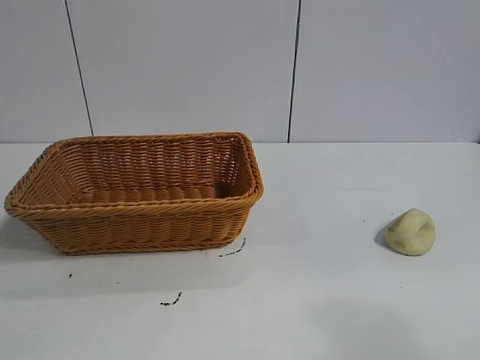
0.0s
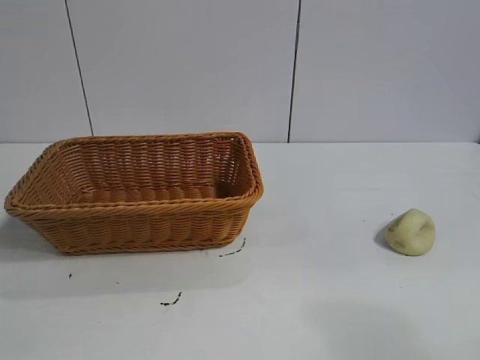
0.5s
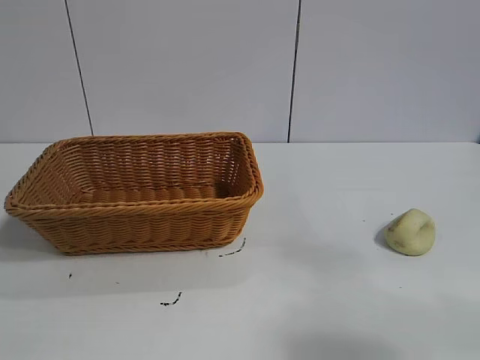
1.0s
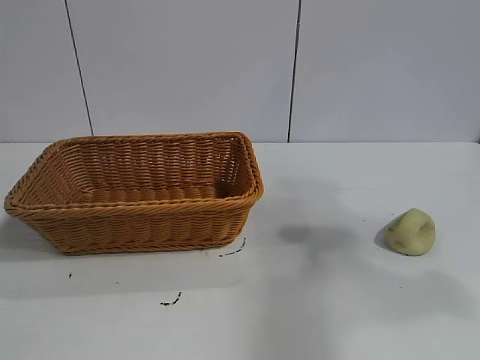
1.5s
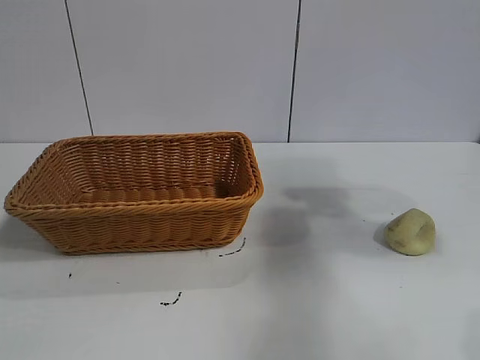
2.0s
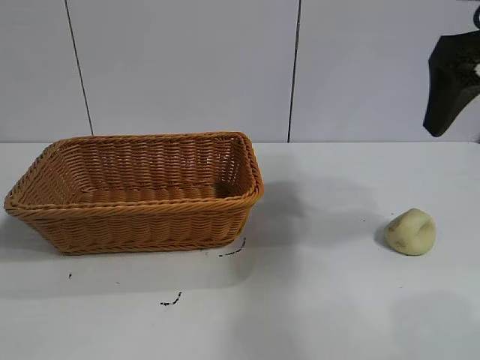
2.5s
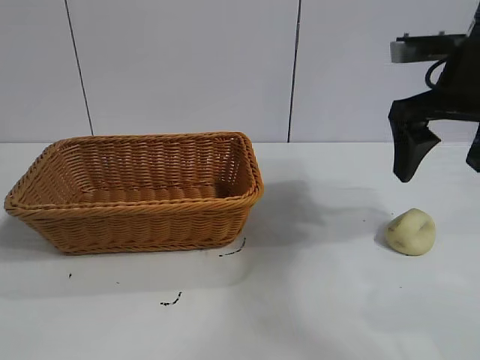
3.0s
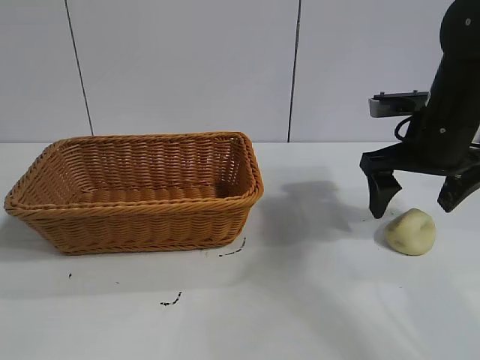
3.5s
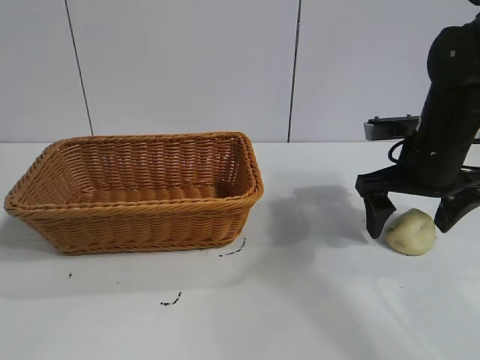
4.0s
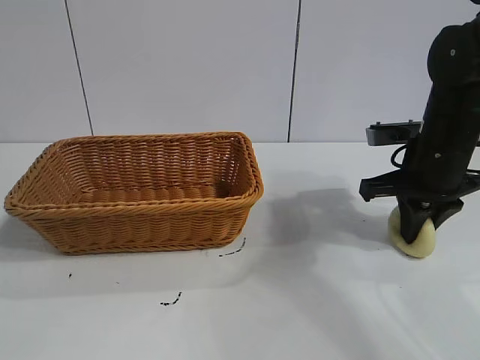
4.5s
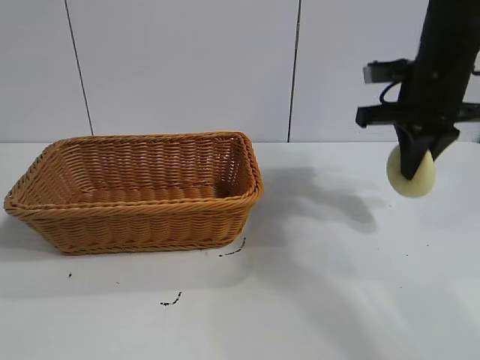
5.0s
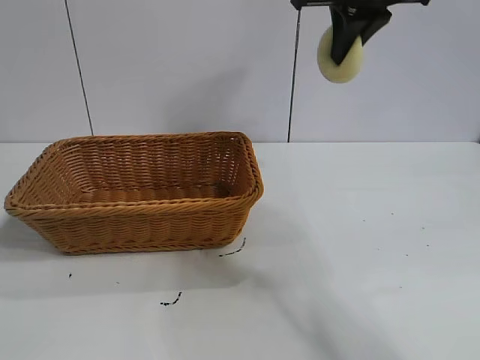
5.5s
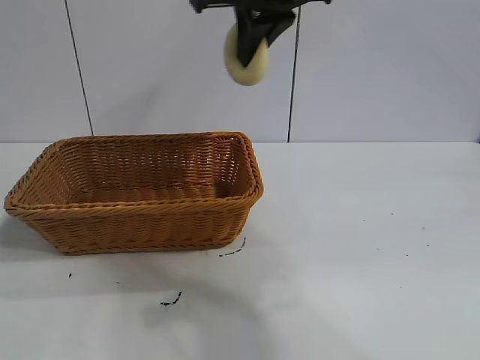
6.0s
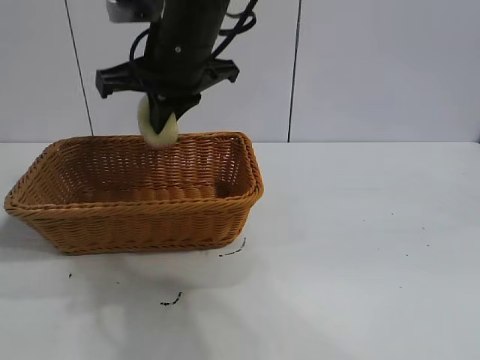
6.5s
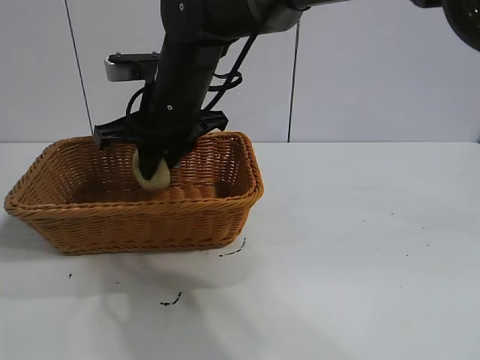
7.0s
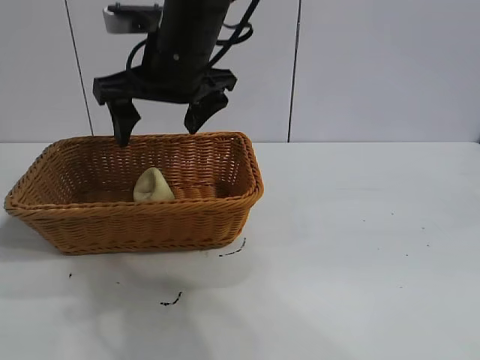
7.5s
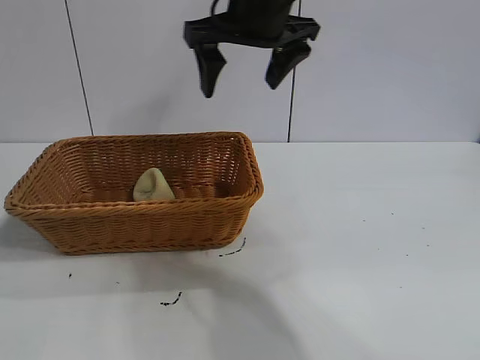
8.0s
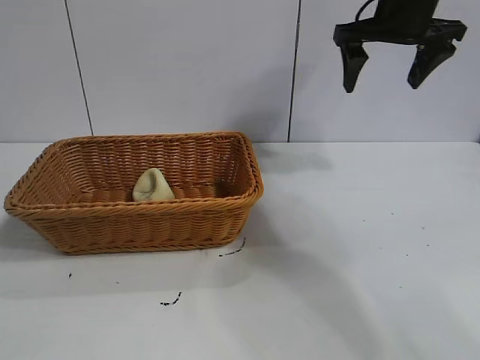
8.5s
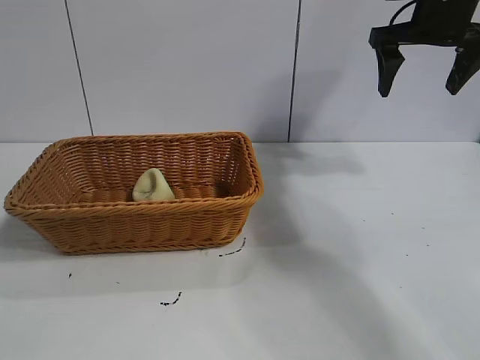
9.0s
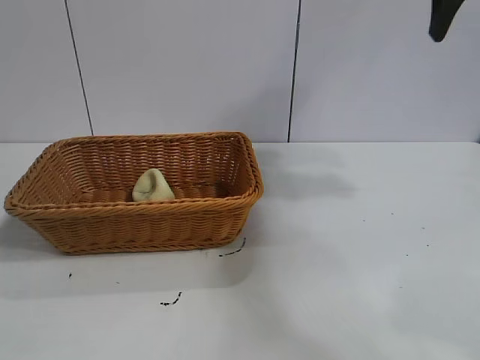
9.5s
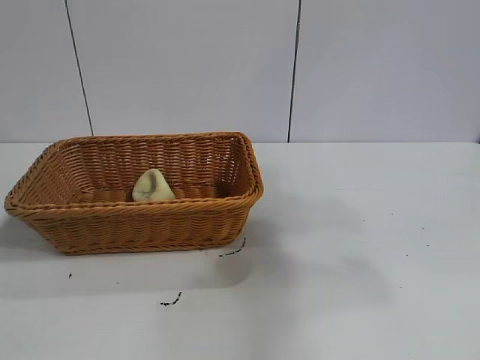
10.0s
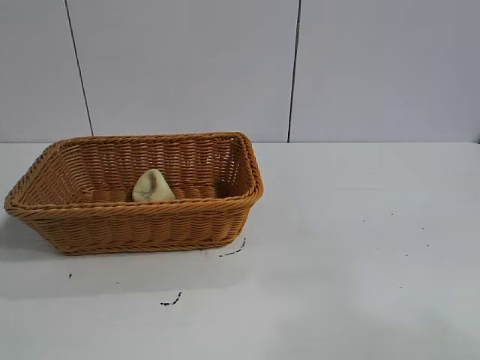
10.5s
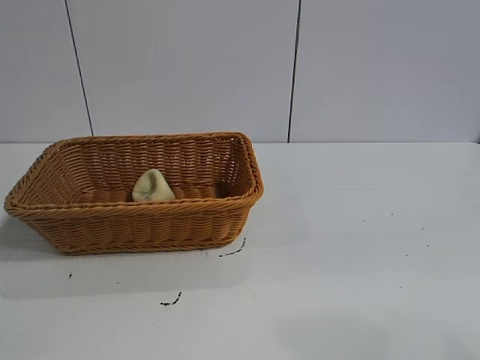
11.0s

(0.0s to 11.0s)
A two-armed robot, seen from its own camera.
Task of the whole recording: pick up the egg yolk pastry and put it into the basket.
Step, 1.0s - 4.5s: Grasp egg yolk pastry with right gripper.
Step, 5.0s - 7.0s: Place the egg yolk pastry in the basket with right gripper.

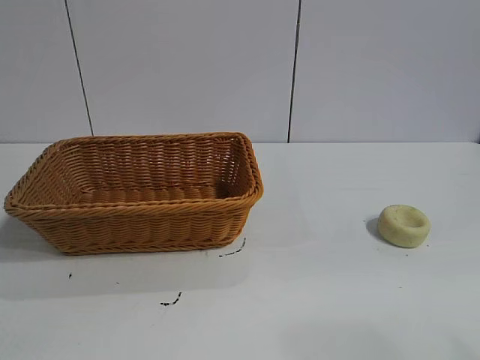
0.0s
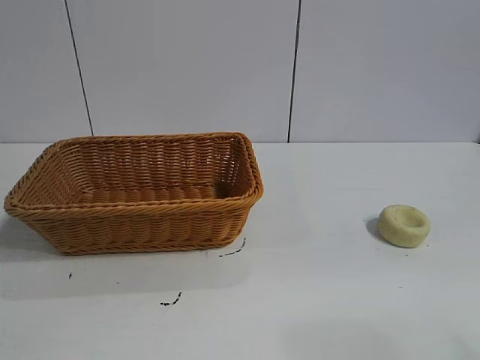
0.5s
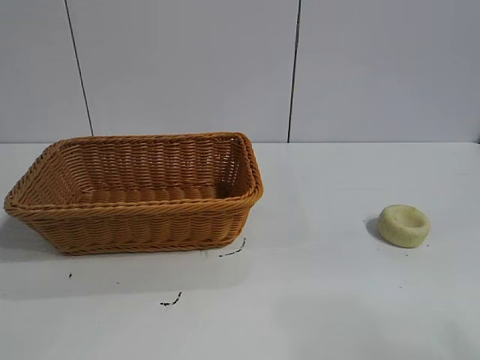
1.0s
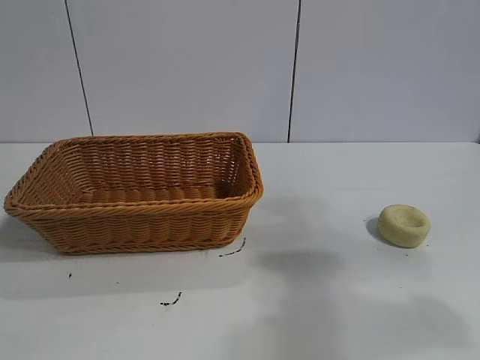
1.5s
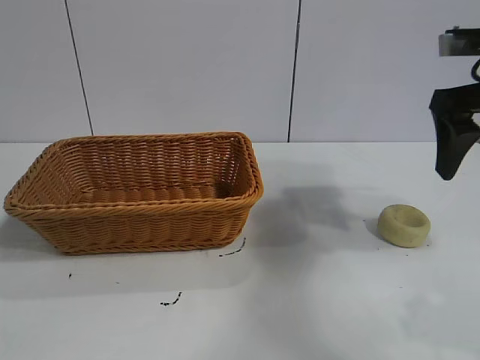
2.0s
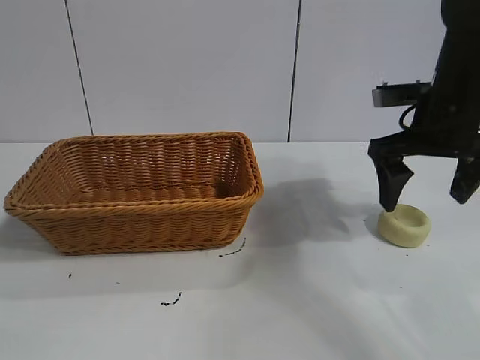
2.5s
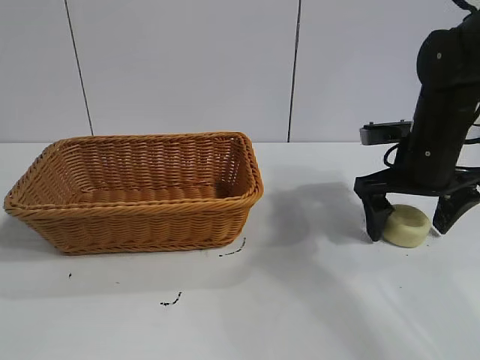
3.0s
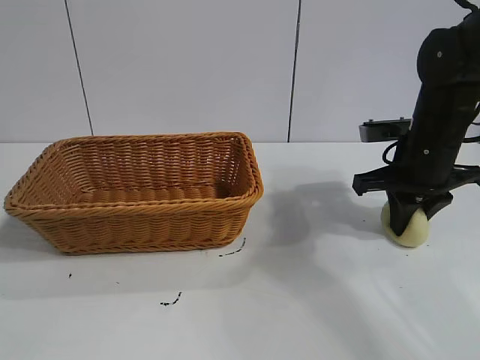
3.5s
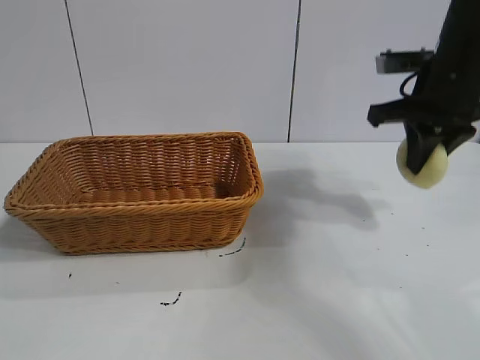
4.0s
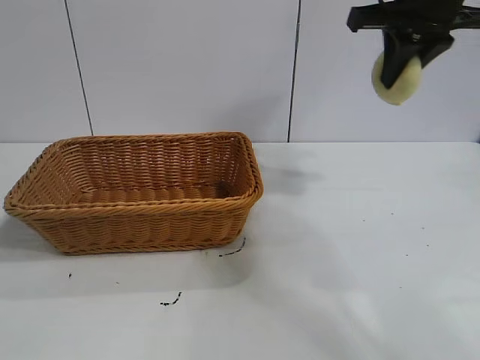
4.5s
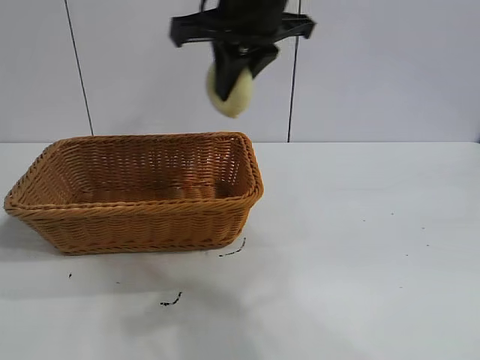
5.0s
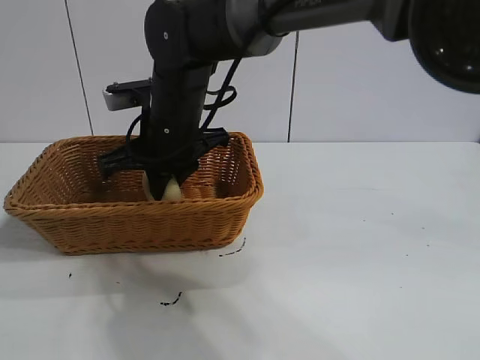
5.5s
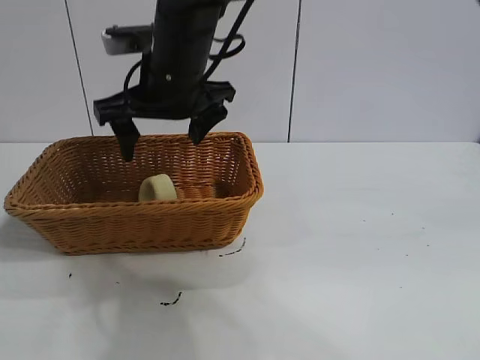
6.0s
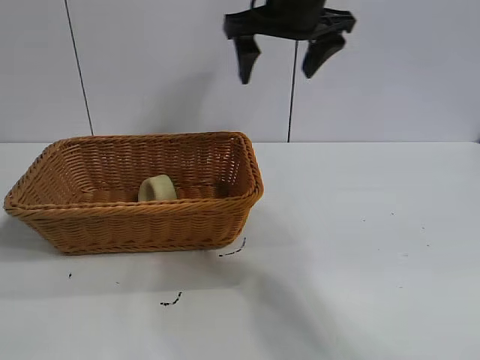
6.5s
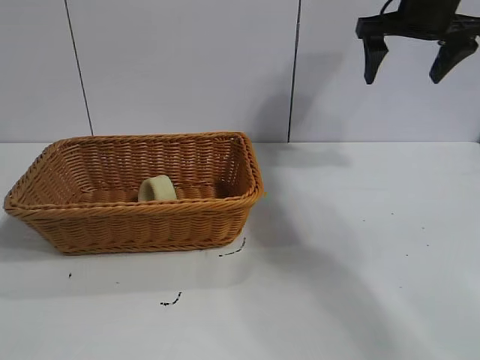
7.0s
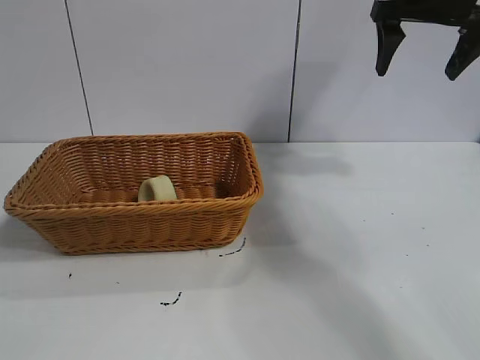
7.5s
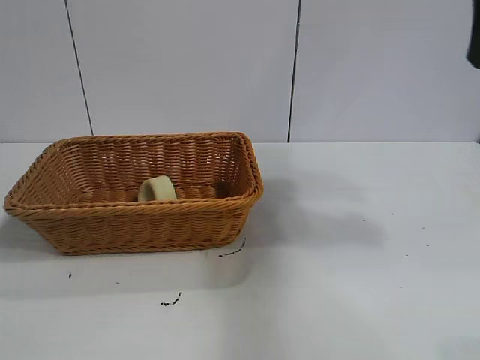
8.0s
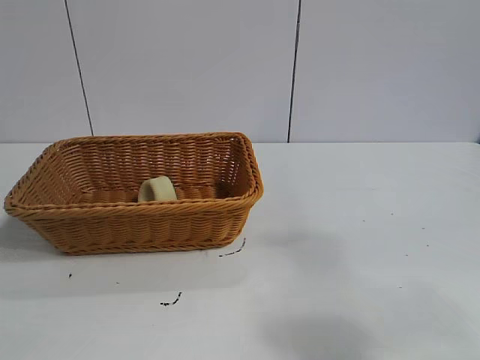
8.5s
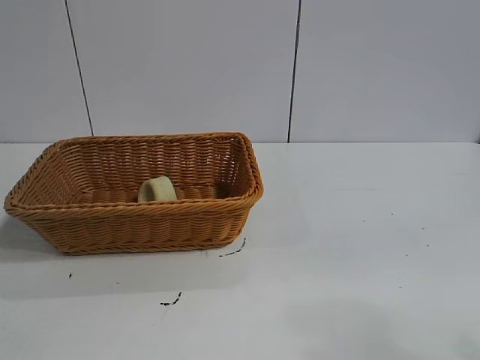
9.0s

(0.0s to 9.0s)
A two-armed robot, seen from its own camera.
Task of the whole recording: pick up the egg yolk pastry and put it into the basket.
Step, 1.0s - 3.5s: Grasp egg yolk pastry with right gripper.
Step, 4.0s - 5.5s: Place the egg yolk pastry in the basket with right gripper.
